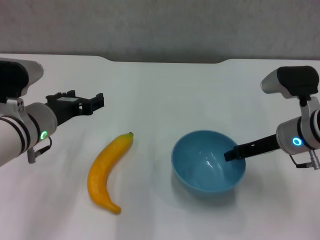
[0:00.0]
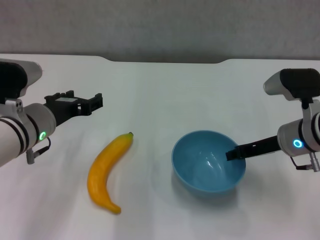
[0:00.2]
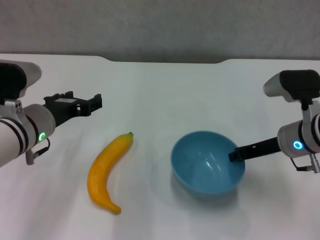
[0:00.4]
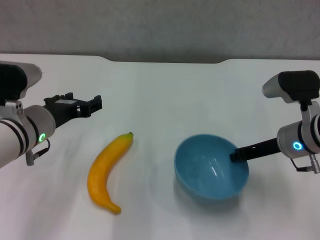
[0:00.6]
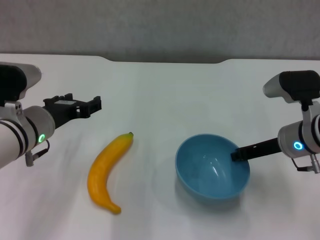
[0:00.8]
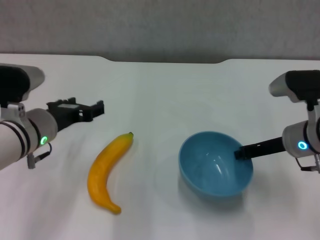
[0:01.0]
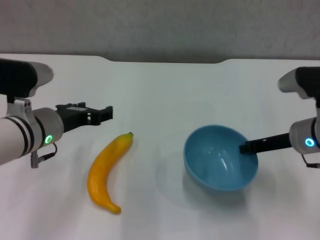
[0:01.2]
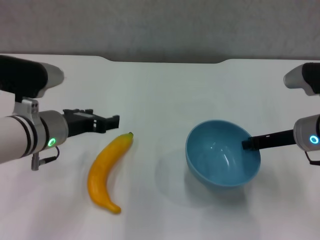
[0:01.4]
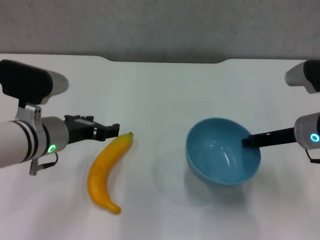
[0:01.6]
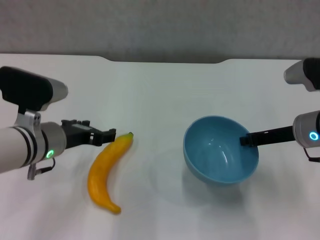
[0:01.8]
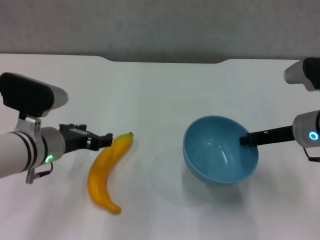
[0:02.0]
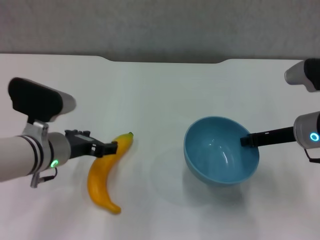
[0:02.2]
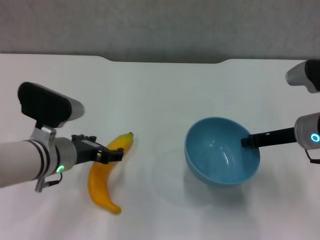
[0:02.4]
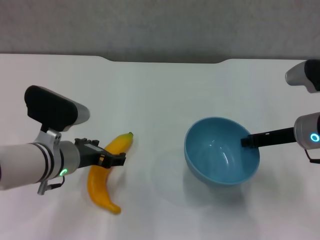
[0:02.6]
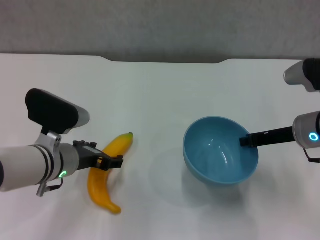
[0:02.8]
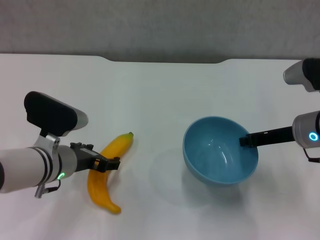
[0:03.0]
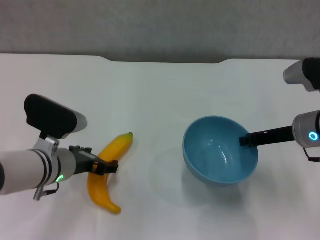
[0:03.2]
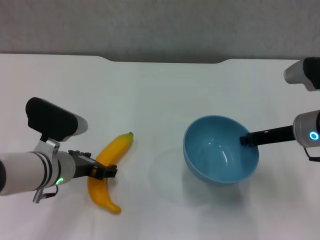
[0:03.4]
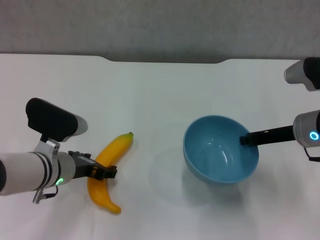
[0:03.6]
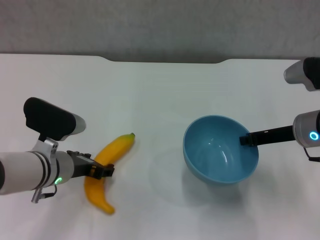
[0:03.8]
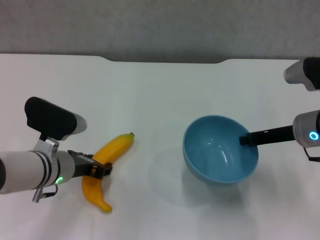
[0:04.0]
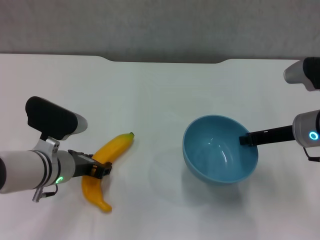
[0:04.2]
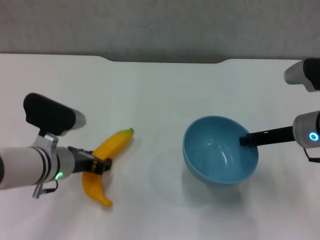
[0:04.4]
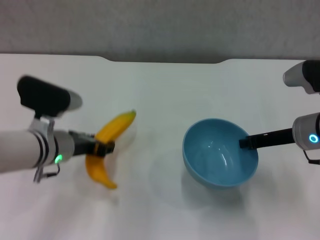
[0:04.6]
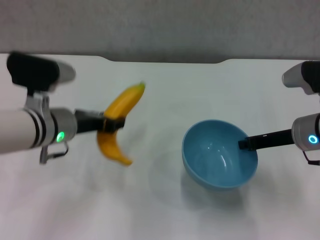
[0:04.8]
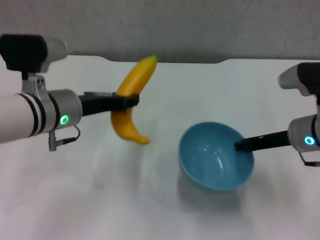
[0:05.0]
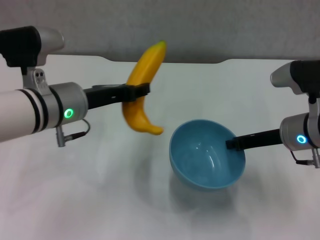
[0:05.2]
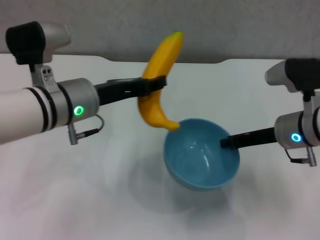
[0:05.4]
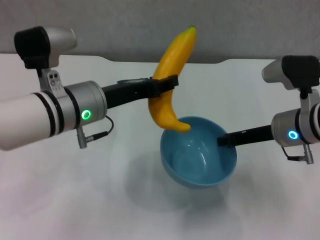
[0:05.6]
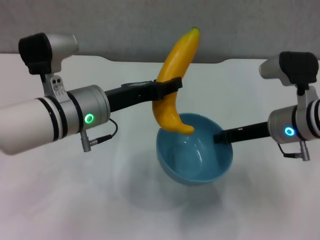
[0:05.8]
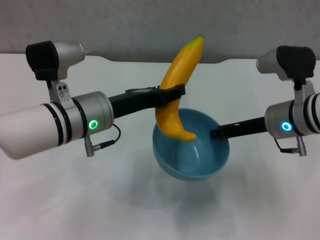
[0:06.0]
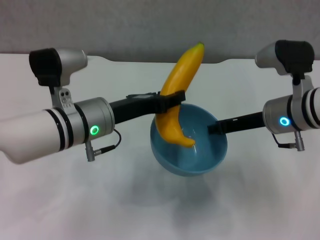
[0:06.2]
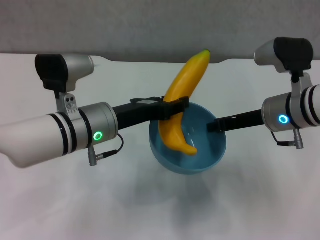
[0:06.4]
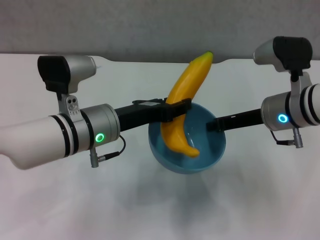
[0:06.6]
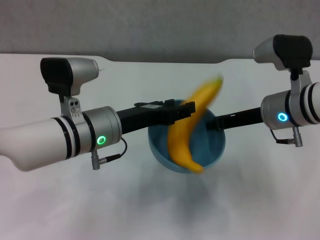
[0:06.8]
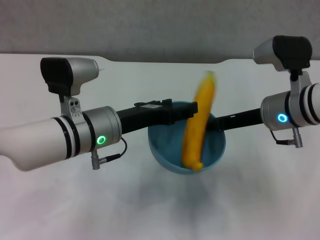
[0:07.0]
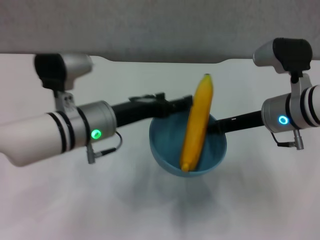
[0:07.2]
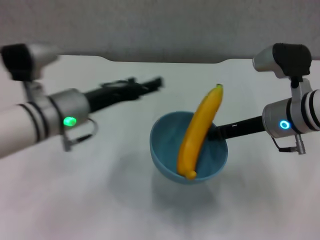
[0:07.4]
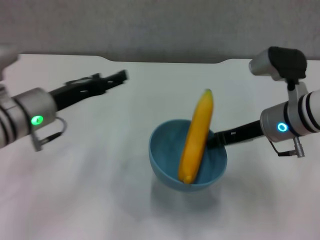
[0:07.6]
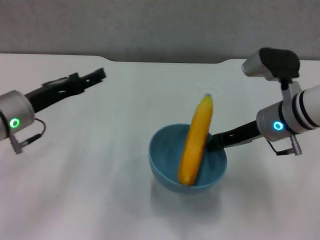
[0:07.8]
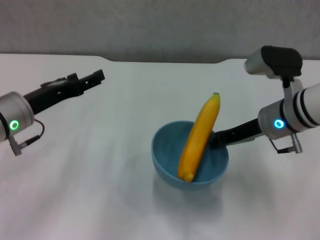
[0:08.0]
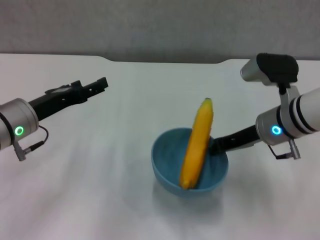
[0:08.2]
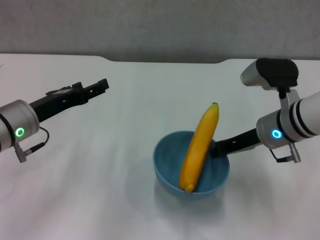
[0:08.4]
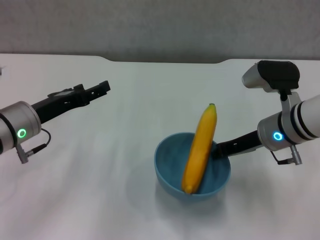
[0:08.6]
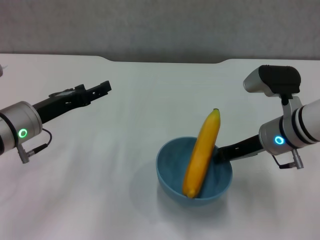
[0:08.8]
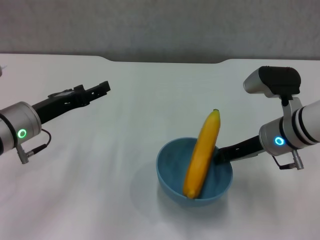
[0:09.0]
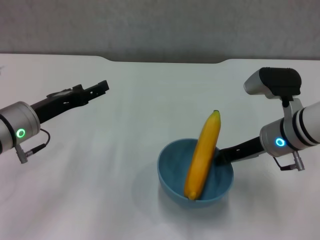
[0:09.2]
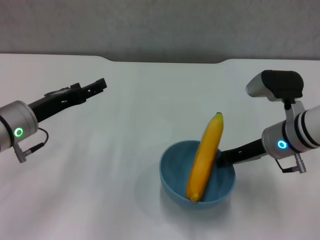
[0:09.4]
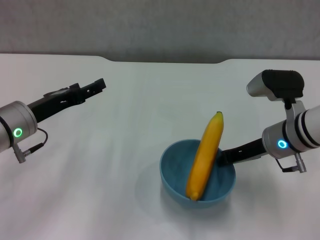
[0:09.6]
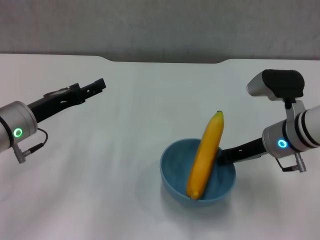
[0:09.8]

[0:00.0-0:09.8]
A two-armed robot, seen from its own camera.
Step, 0:00.8 to 0:01.6: Lift the blue bowl with right gripper.
Step, 0:01.8 to 0:04.0: Grasp the banana with left gripper.
Step, 0:04.2 to 0:07.0: Place the banana in the blue bowl with left gripper.
0:00.0 to 0:01.4: The right gripper closes.
0:01.4 to 0:02.8: The left gripper shifts about 5 cm downward.
0:02.8 to 0:04.2: The left gripper closes its fingers.
0:04.2 to 0:05.6: The left gripper moves upward and to the right, approximately 10 cm.
0:07.0 to 0:08.4: The left gripper goes roughly 10 cm to the left, and opens up.
0:08.4 to 0:09.8: The grippers make only small movements.

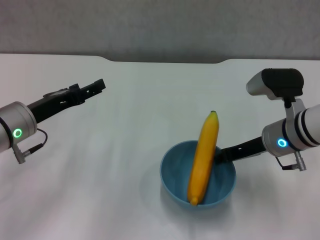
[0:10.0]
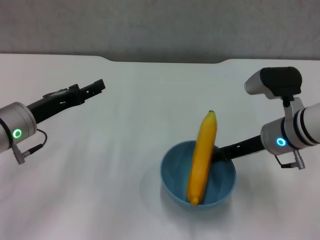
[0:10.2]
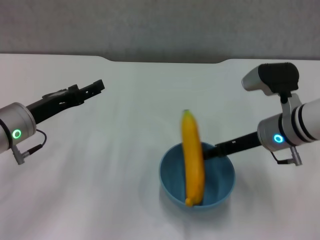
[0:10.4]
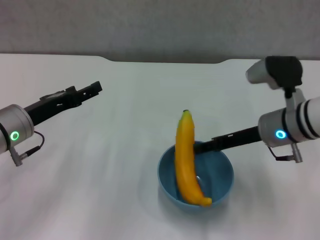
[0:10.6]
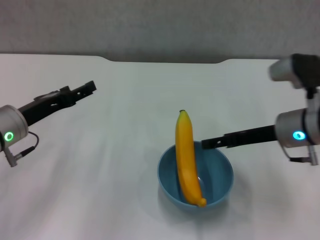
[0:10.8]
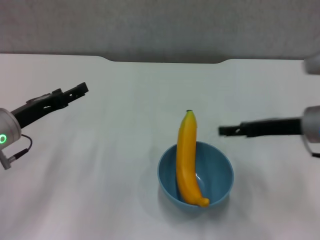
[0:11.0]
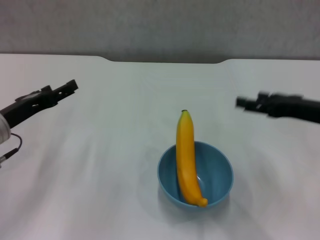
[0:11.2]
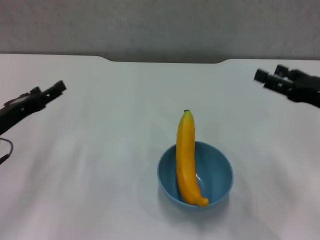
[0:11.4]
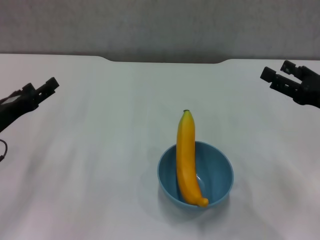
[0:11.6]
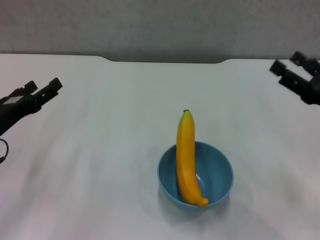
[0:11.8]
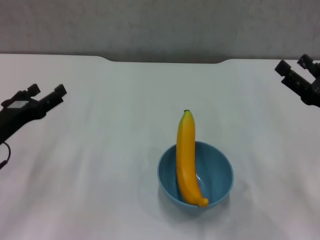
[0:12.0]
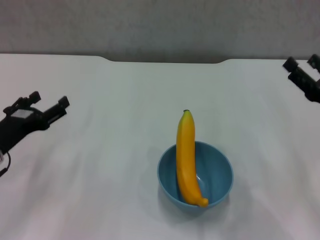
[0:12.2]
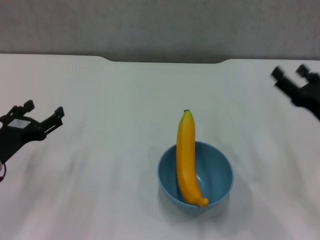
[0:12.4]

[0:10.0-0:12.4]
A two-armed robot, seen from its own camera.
0:10.0 to 0:11.2: The right gripper is displaced to the right and upward by roughly 10 cm, and opens up.
0:11.2 to 0:12.4: The left gripper ends up about 5 cm from where it was, while the right gripper is displaced downward by approximately 5 cm.
